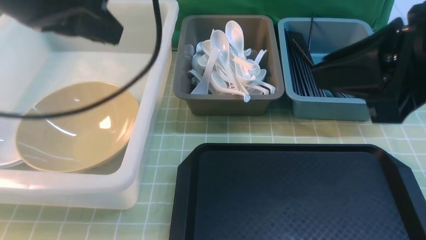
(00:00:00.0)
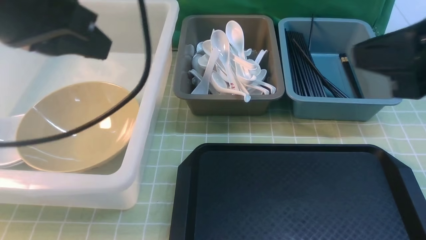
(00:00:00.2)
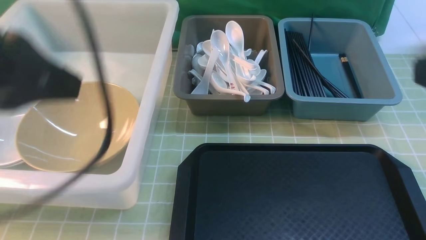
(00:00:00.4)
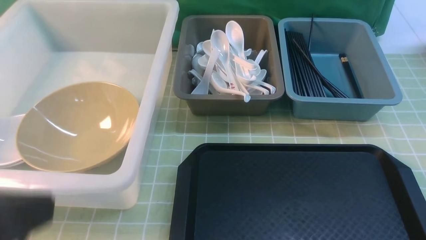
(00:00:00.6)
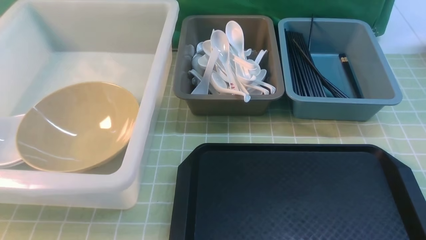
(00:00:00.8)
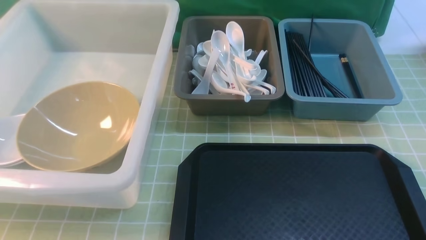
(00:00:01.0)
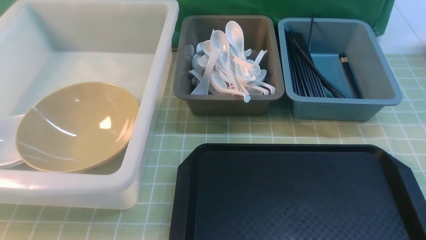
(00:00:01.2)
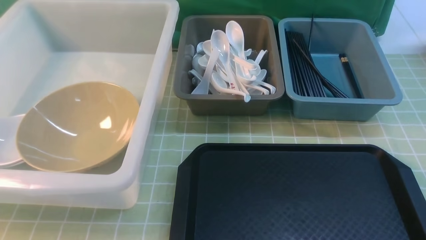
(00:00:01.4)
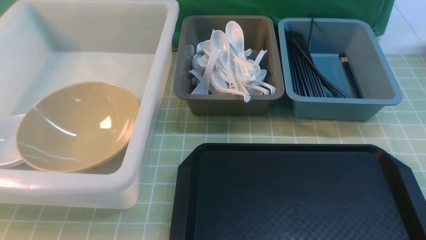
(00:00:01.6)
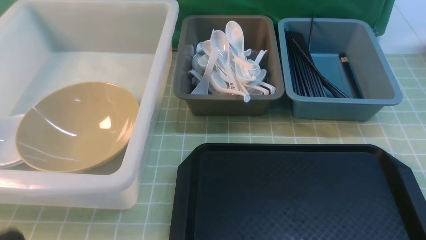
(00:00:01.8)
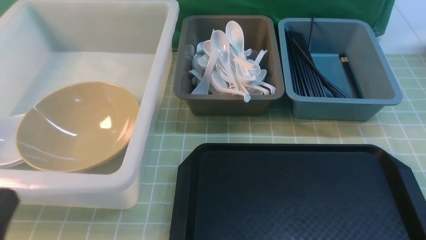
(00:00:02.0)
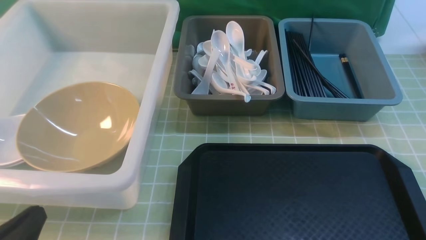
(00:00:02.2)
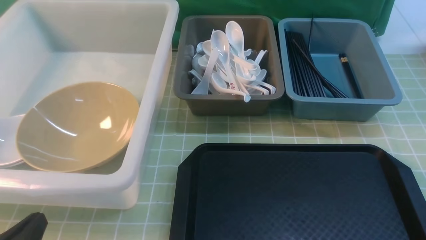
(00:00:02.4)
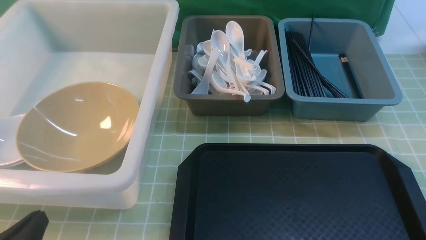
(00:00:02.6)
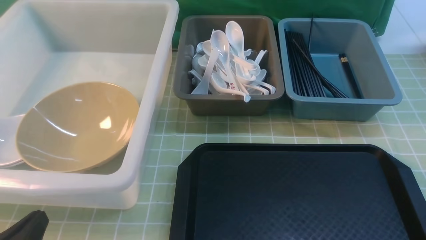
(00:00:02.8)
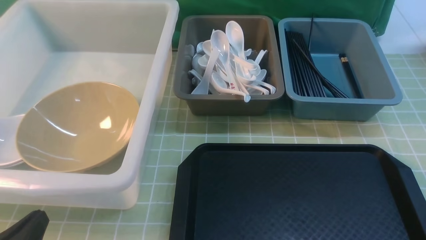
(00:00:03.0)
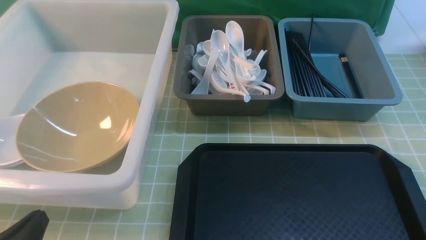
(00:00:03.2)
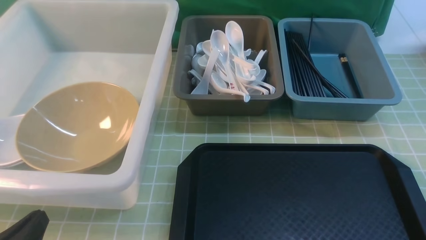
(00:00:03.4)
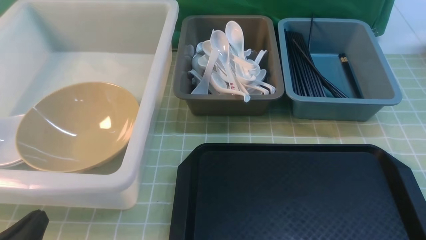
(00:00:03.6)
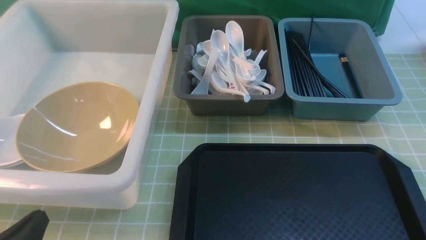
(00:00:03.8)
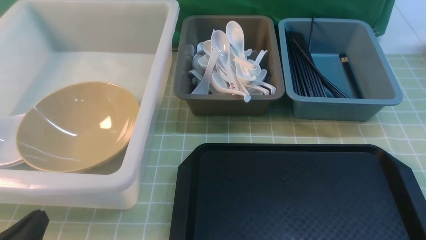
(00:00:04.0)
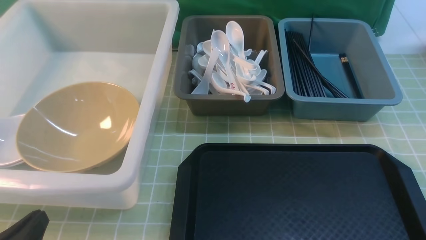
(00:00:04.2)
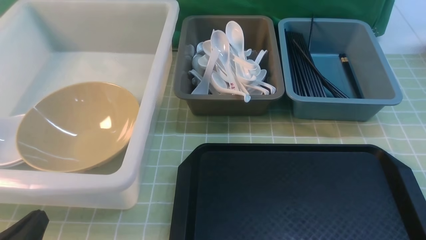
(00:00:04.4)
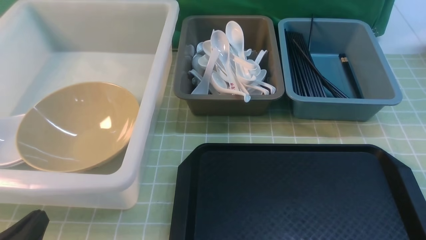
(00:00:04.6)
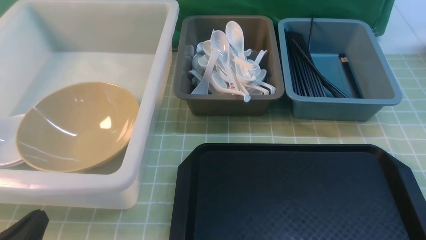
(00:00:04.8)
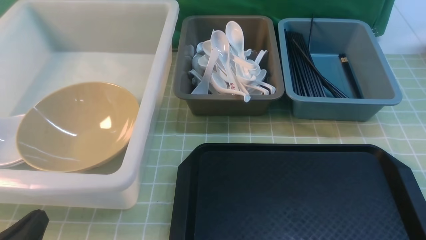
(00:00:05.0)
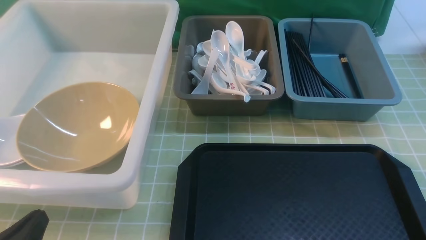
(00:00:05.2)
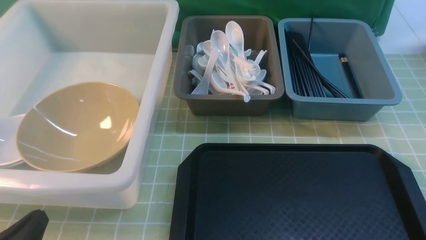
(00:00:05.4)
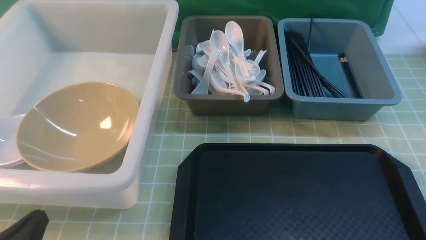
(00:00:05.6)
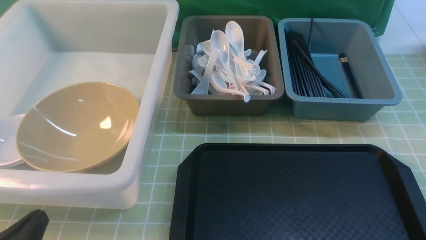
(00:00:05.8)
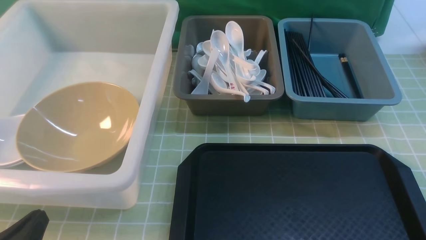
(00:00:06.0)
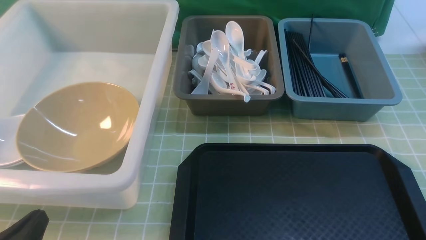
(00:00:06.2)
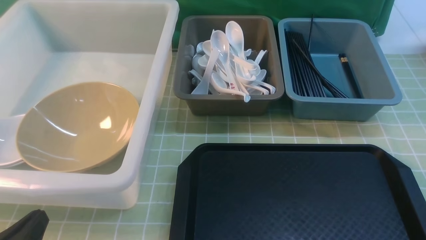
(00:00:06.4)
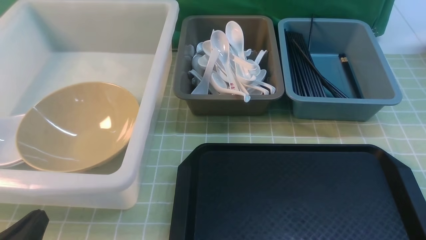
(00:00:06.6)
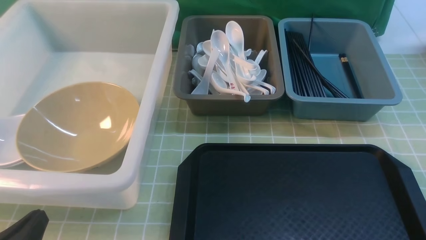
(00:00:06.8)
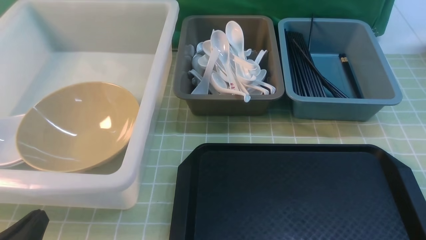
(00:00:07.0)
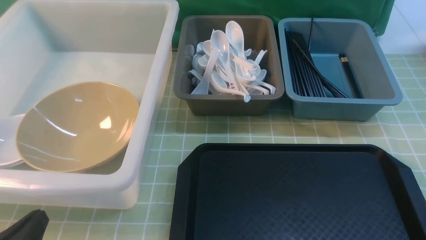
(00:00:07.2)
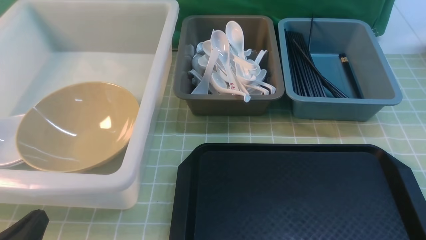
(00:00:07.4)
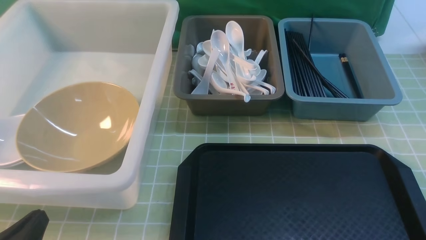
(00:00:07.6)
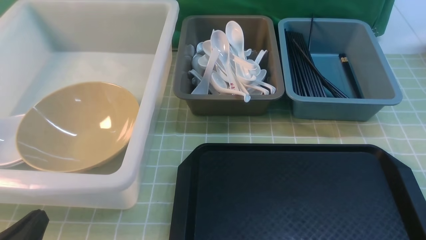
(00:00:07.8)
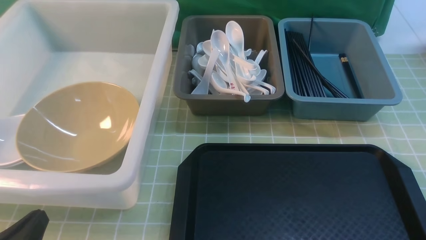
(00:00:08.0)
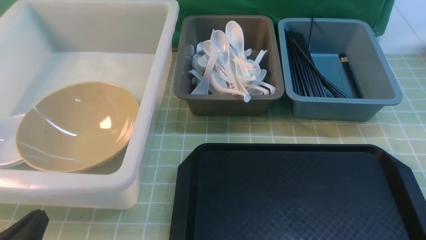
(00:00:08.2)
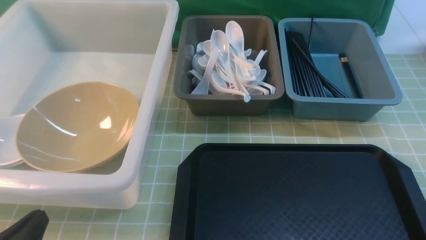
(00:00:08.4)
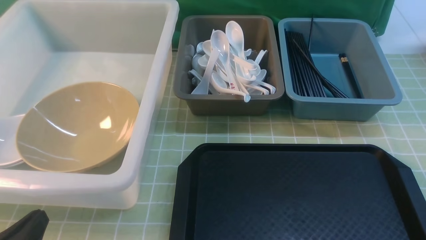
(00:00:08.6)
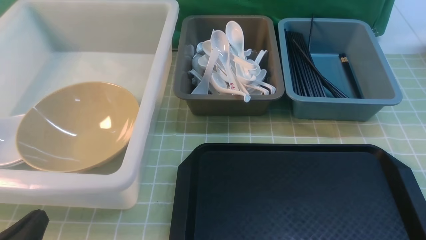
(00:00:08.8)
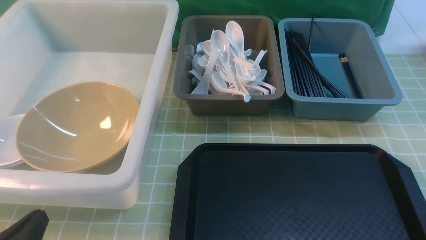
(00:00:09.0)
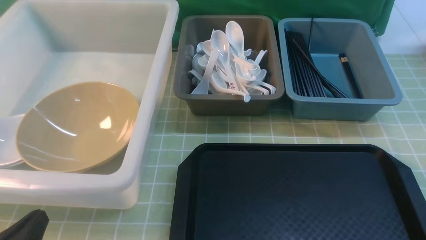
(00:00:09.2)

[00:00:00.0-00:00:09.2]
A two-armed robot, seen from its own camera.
Task of the whole recording: on green table put chopsticks spoon bowls plates into blue grey white boxes.
00:00:00.0 to 00:00:01.6: The right gripper is displaced downward, backward and to the right by about 20 cm. Meanwhile the left gripper moves backward and downward, some 30 cm.
00:00:01.6 to 00:00:03.0: The left gripper is displaced downward and forward by about 15 cm.
00:00:06.2 to 00:00:09.2: Neither gripper changes place.
